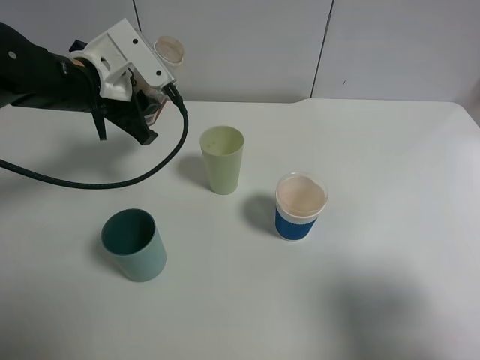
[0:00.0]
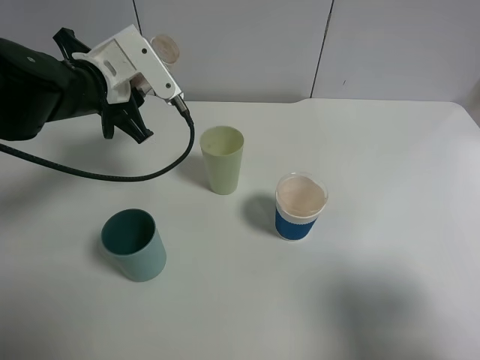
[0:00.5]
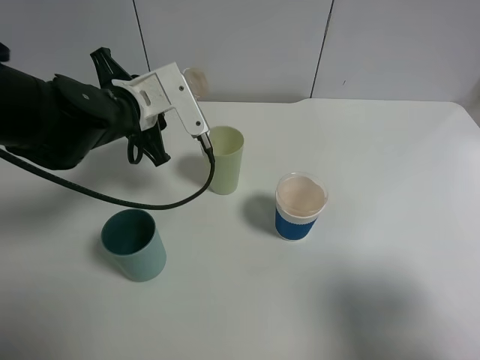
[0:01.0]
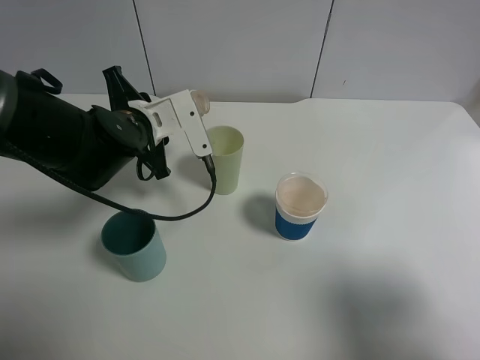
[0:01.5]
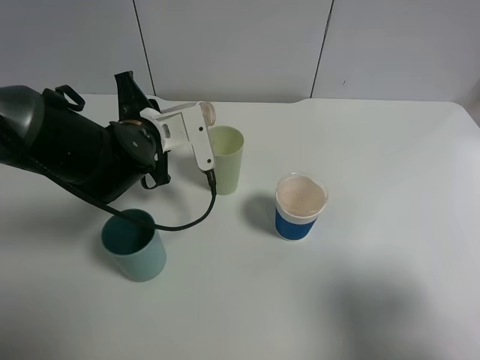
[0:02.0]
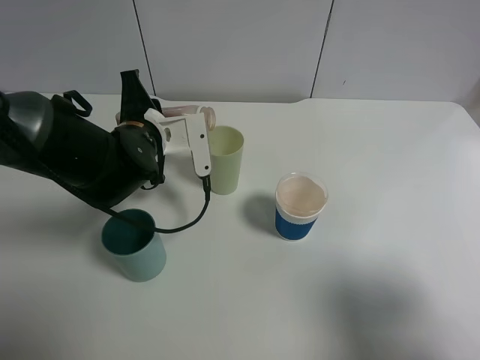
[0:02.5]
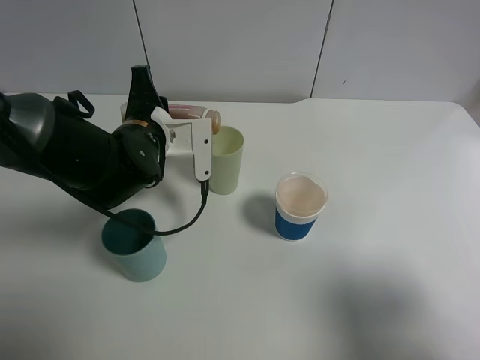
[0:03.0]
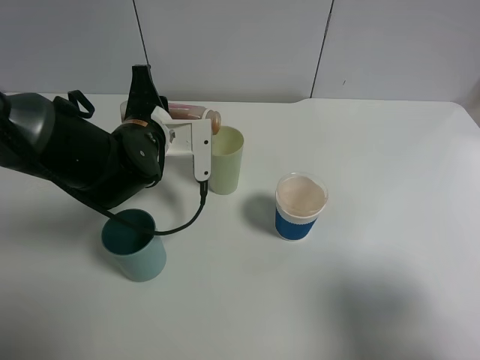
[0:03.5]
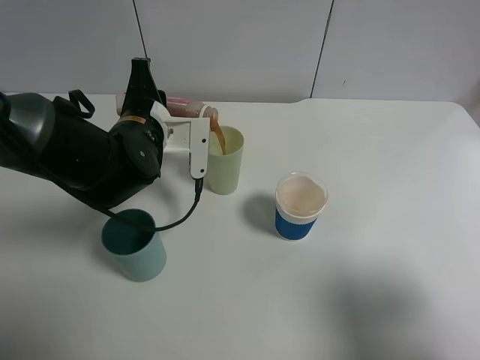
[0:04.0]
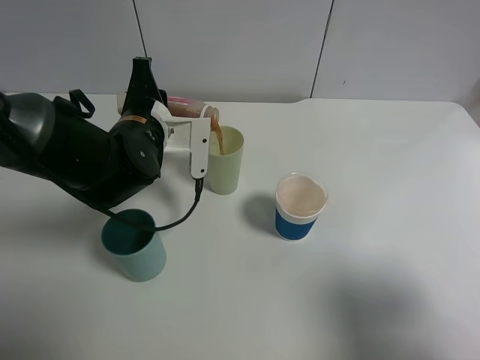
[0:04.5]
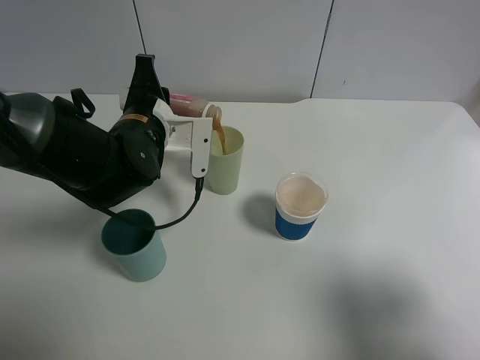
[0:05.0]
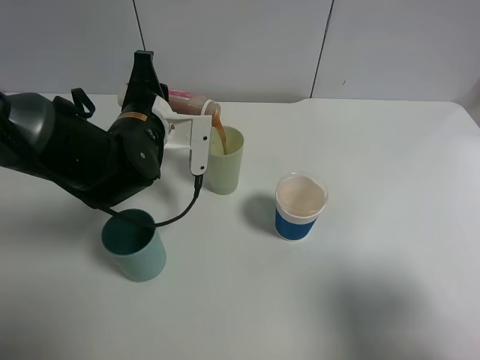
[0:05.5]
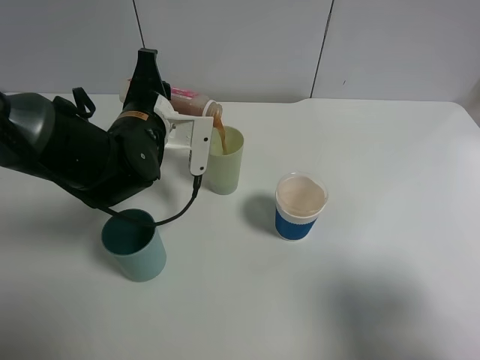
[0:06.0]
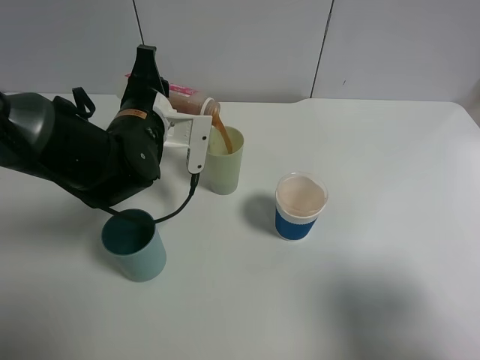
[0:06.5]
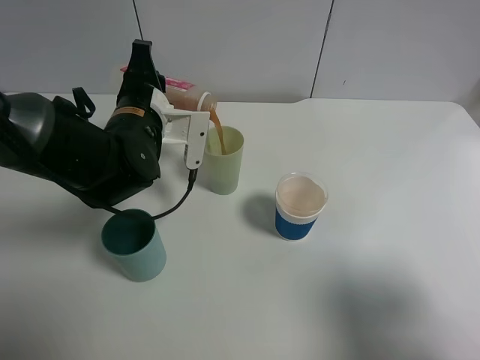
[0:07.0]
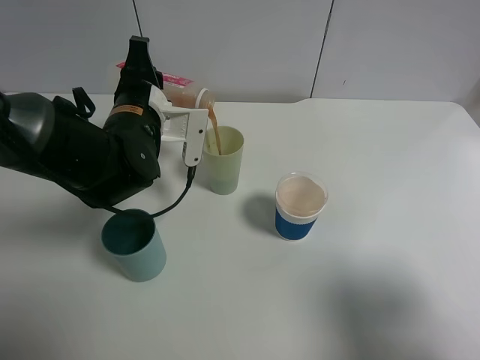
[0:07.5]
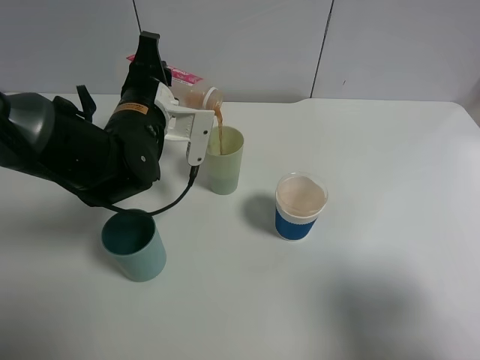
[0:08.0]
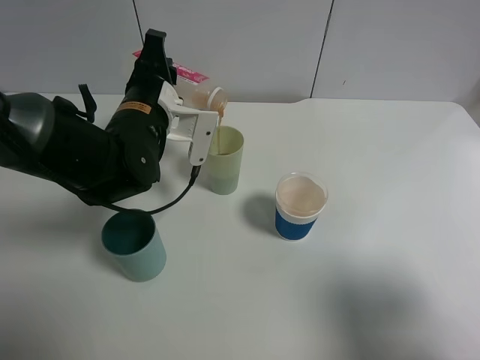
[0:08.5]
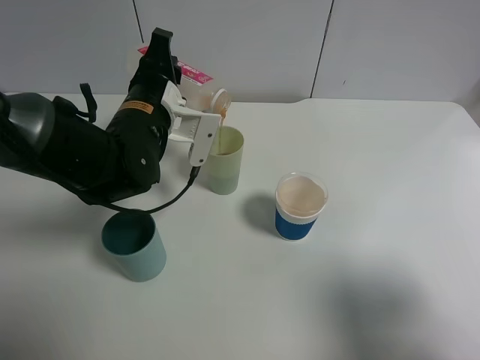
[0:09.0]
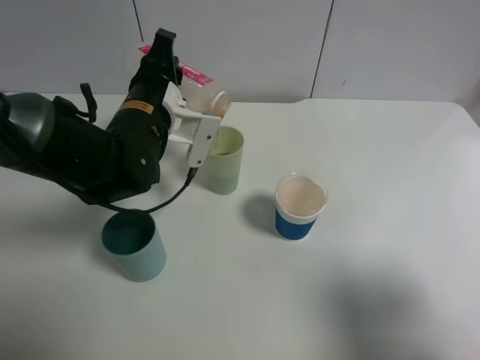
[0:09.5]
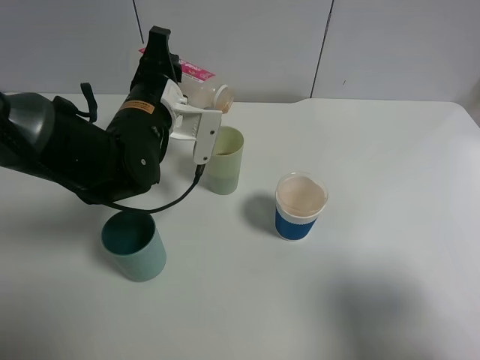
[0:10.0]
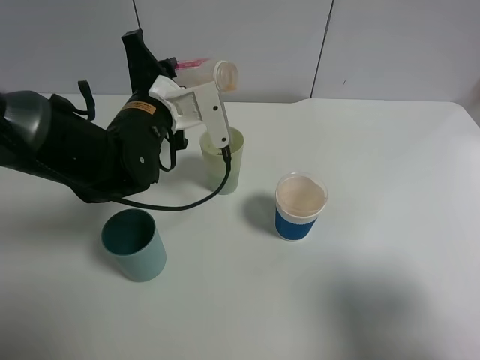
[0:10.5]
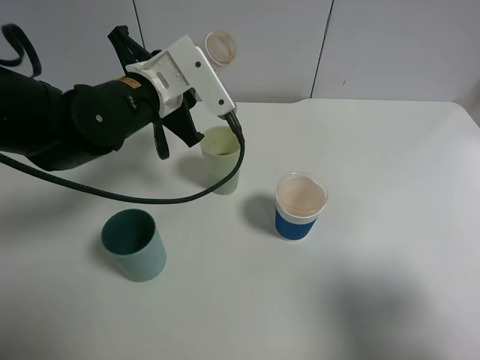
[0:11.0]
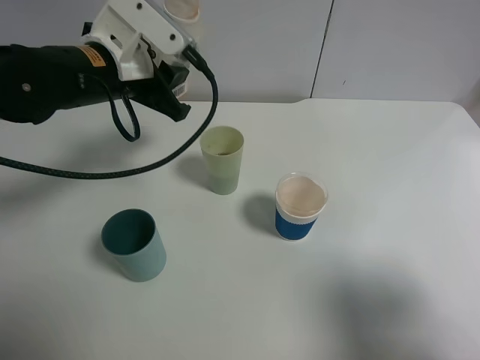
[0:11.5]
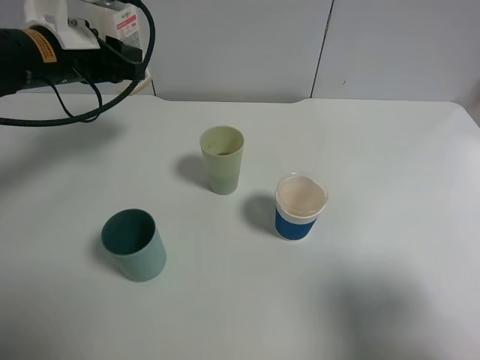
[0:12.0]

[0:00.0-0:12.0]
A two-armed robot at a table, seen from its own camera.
Task of the whole recording: use a gripper to hold the bottle of the drink and pour it into a random cup.
Step, 0:00.0 to 0:10.0: Pour the cranberry juice into the cyan cup with the left gripper.
0:00.0 to 0:02.0: The left gripper travels downward and to the right by about 10 cm.
0:02.0 to 0:04.0: The grippers move only a little.
0:04.0 to 0:08.0: The grippers move only a little.
0:08.0 to 0:10.0: The grippers move only a little.
0:10.0 to 0:12.0: The left gripper is displaced to the left and upward by some 10 cm.

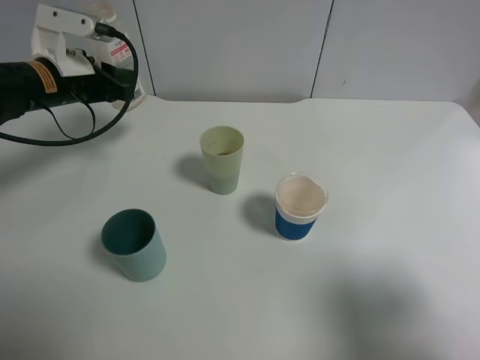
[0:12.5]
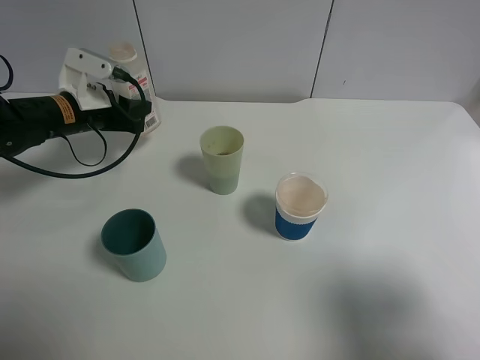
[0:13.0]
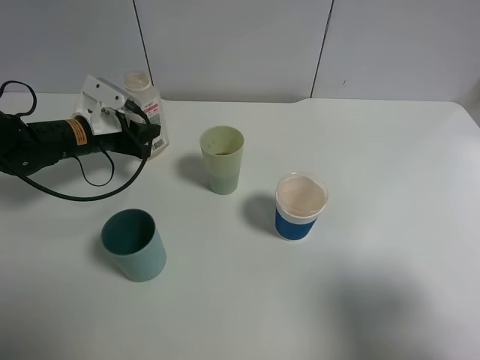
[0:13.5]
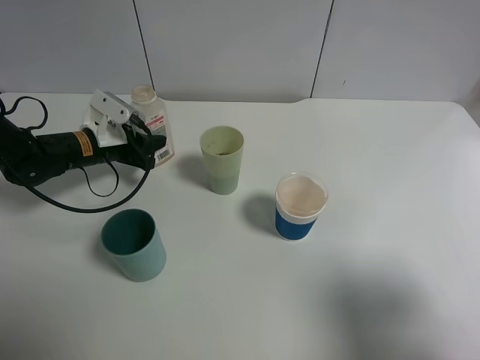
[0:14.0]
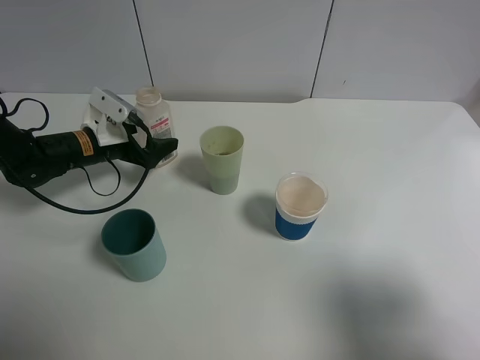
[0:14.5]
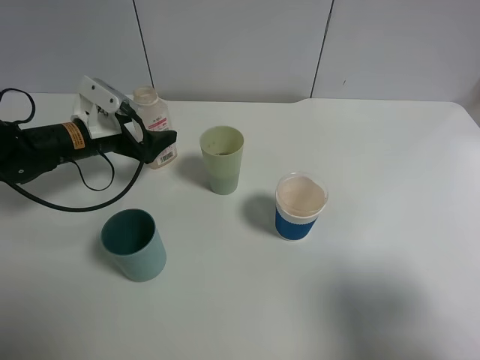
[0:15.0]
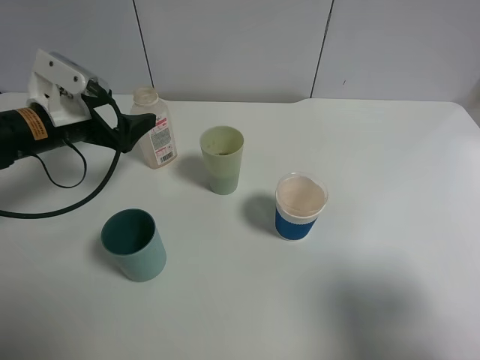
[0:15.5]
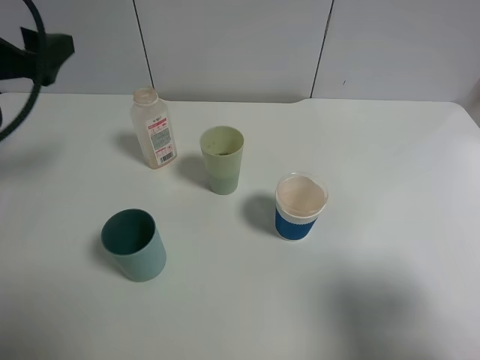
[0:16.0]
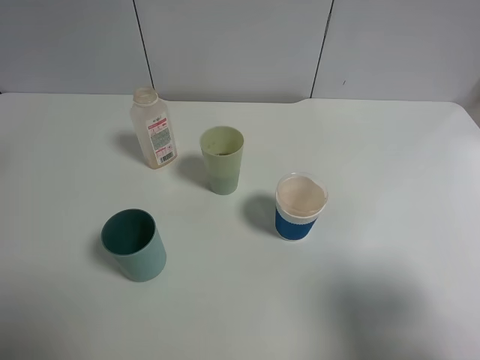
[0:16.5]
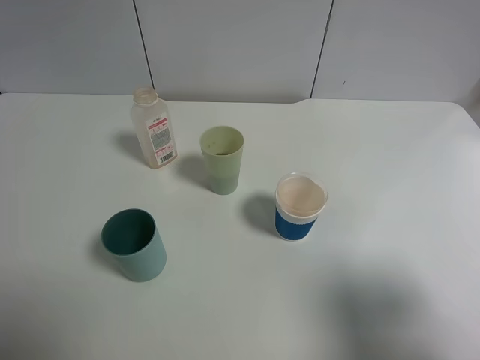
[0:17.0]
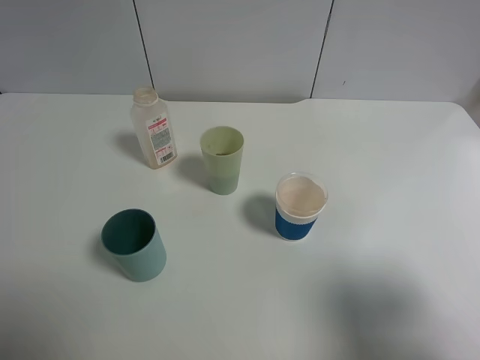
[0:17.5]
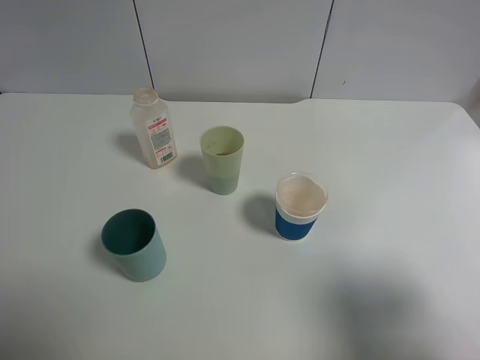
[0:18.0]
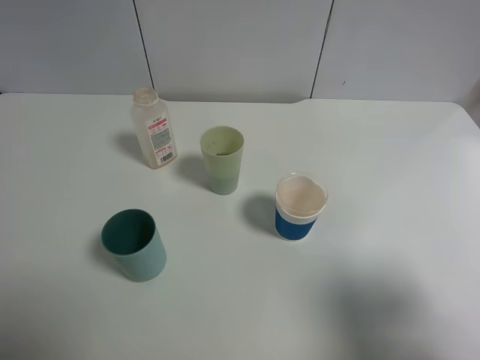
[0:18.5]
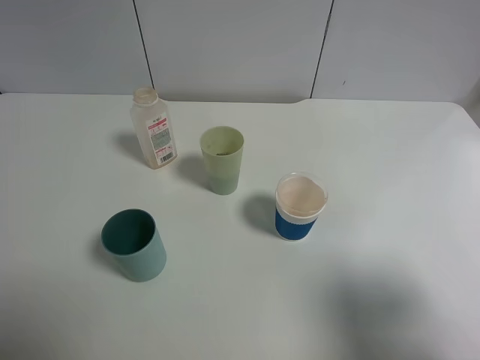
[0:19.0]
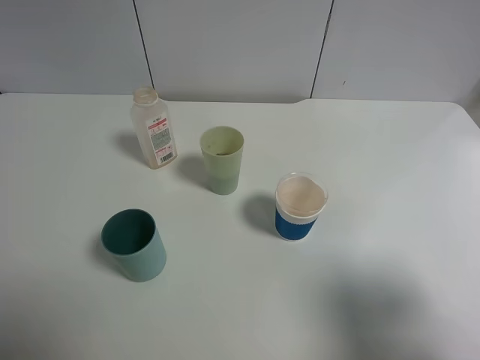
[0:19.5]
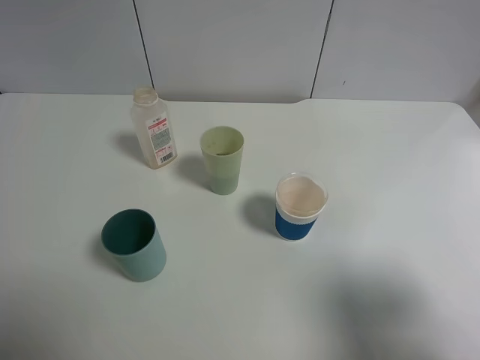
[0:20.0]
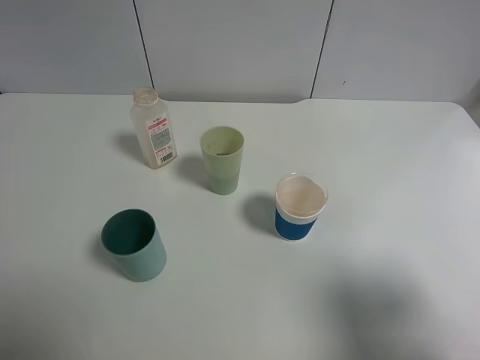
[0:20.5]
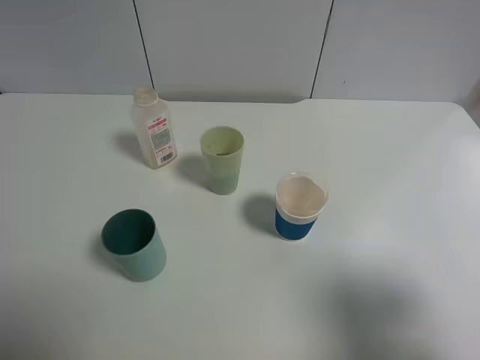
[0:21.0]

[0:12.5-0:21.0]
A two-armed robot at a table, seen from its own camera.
Task of the whole recording: use a gripper to hold the bottle of the drink and pour it into a random cup.
Step, 0:12.5 to 0:14.5: Place the cranberry juice bottle on the table with the left gripper.
0:12.5 to 0:14.5: The left gripper goes approximately 10 cm downward, and opens up.
0:14.5 to 0:16.5: The left gripper heads upward and backward, covering approximately 35 cm.
0:19.0 to 0:21.0: Neither gripper changes place.
